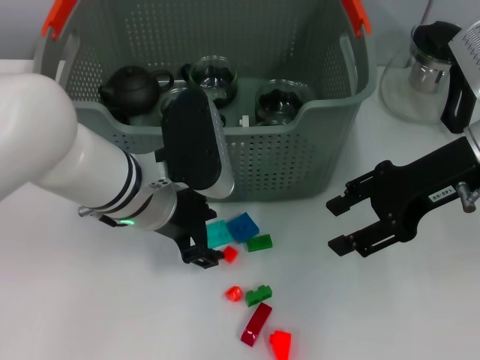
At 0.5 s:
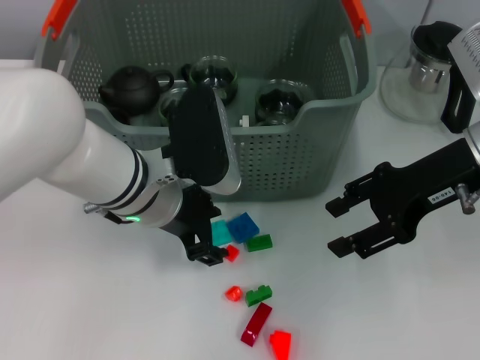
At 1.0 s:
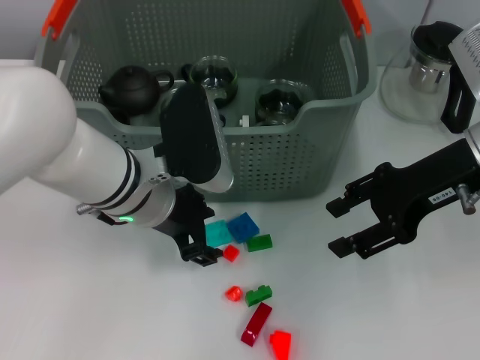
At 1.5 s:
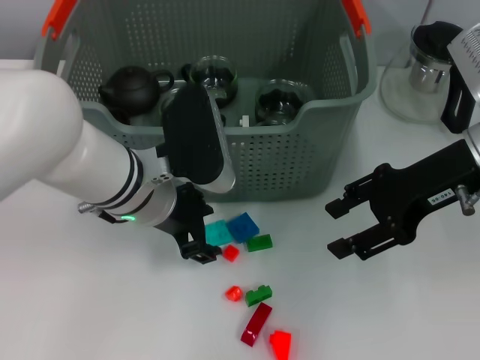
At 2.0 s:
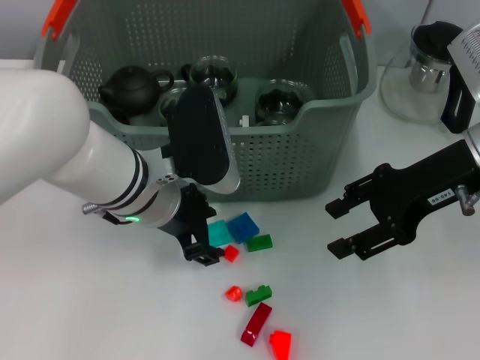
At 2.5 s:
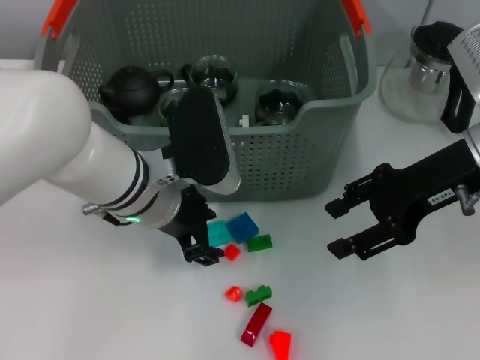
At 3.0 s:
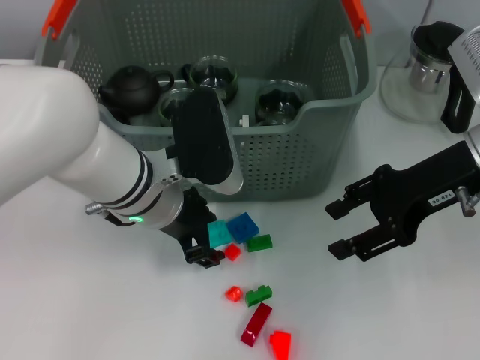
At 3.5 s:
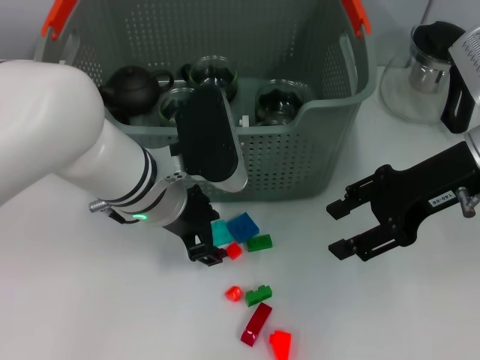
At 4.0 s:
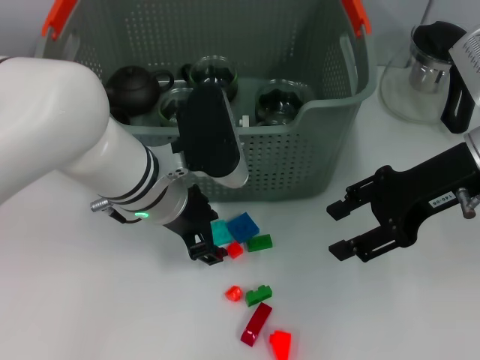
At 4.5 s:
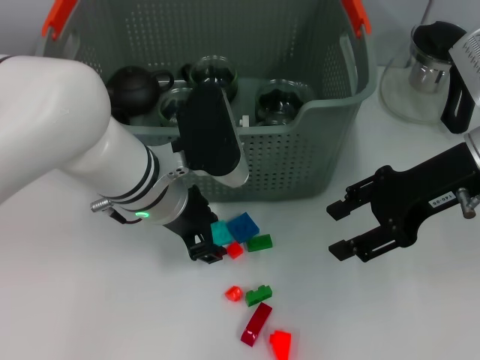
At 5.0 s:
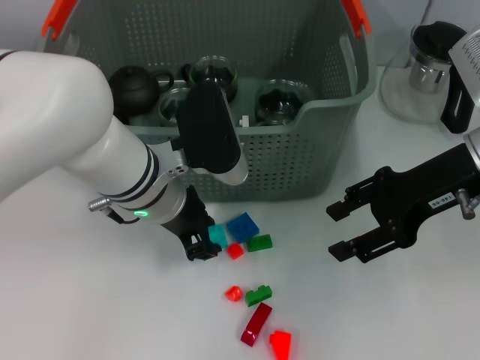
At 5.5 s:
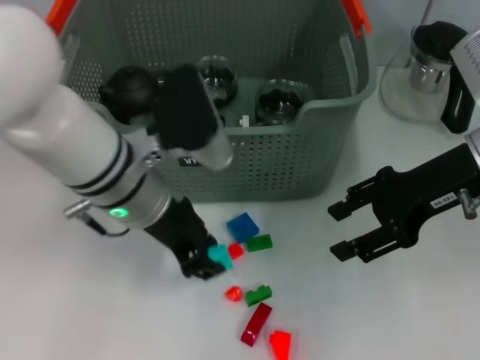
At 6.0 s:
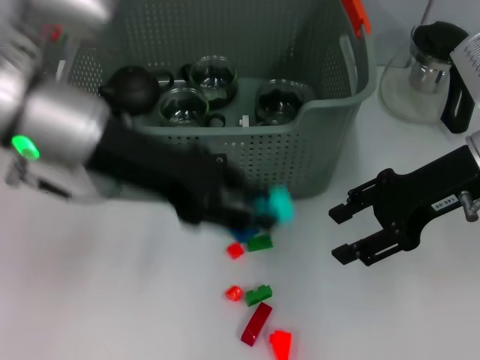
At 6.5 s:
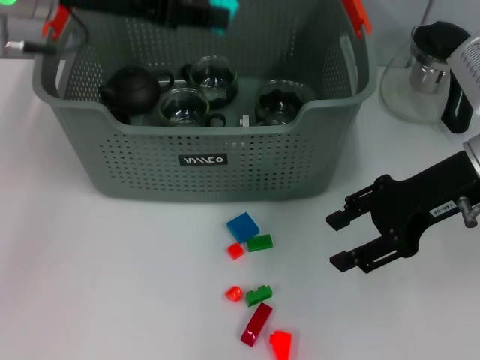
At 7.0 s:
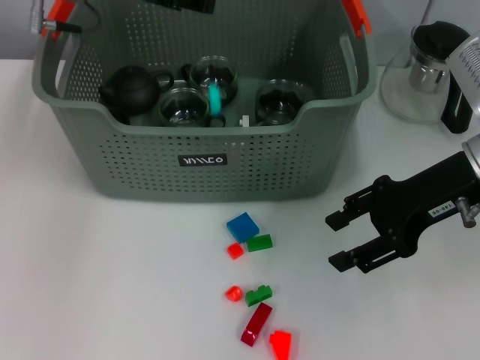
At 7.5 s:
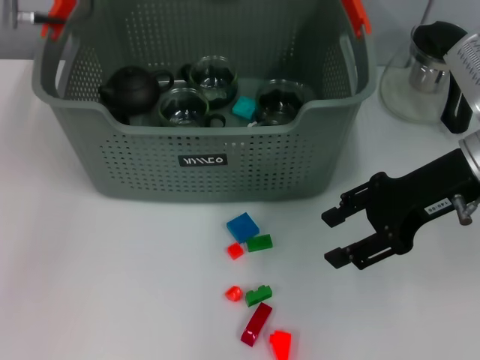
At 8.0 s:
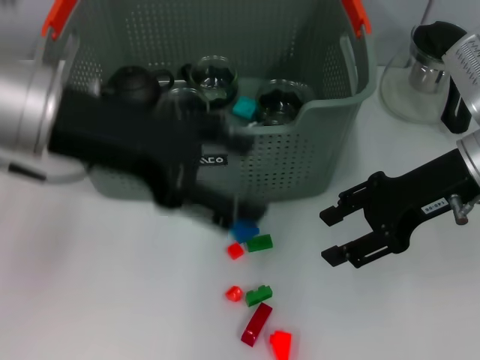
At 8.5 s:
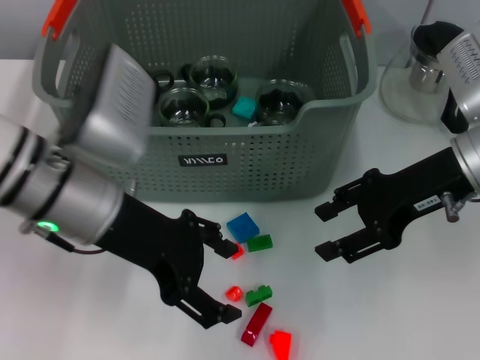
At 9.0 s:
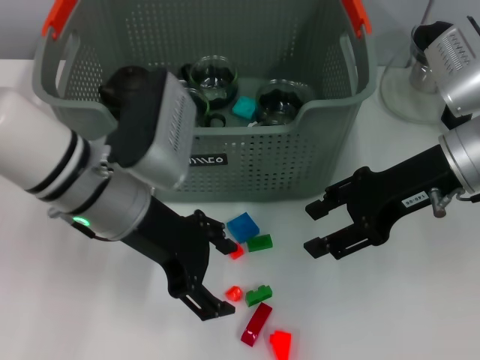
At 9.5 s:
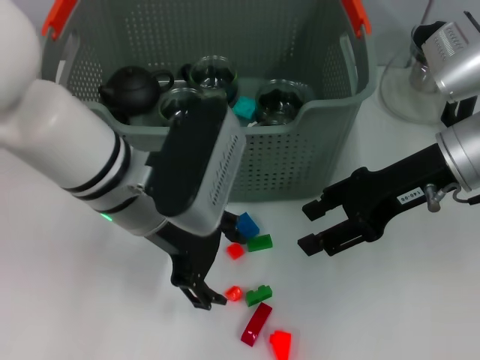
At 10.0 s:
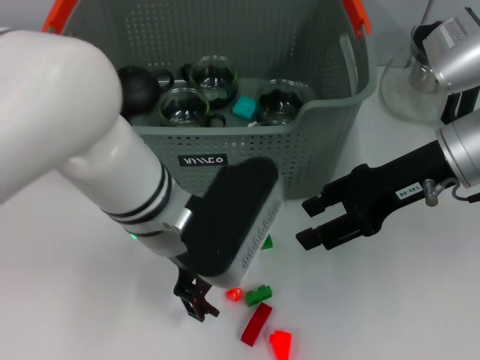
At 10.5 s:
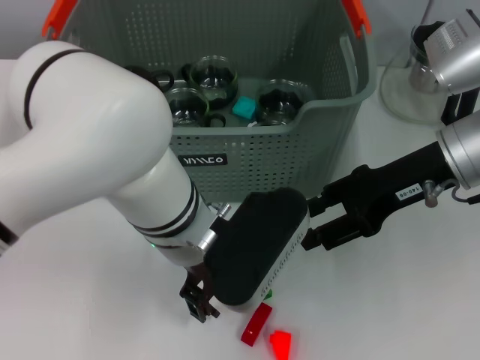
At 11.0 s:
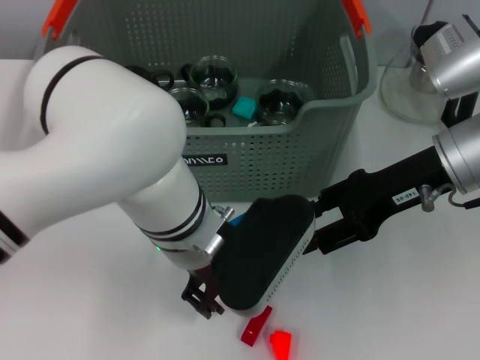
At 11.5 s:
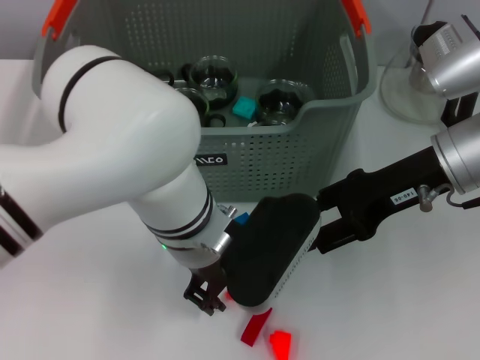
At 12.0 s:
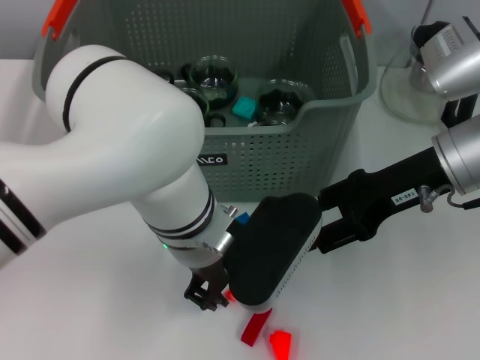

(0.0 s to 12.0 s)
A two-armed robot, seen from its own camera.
Task of the whole recording: pick up the teacup on the table and place it into the storage bin, pick up the block on the table and place it into the storage bin.
Step, 0.0 s - 4.5 s: Grasp the light blue block with left gripper.
Step, 5.0 s - 6.5 s: Place the light blue block in the storage box with left gripper.
0.0 s - 2.0 s: Both grippers stay about where they are.
2.0 s - 4.0 s: Both grippers stay about where they are.
4.0 s - 6.0 s: The left gripper moves upward and to the left, roughly 15 cm.
6.0 s - 8.0 s: The left gripper travels forward and back again, roughly 15 cm each way, and opens.
8.0 s - 10.0 s: The left gripper shifts some 15 cm downward and to the right.
10.0 s - 12.0 s: The left gripper closes up.

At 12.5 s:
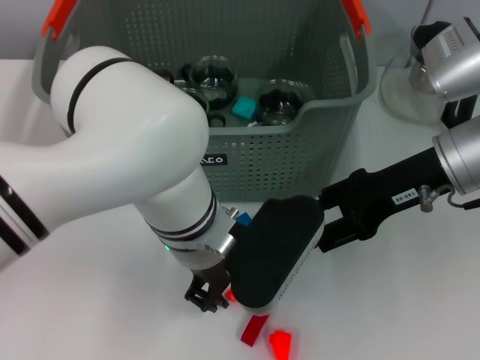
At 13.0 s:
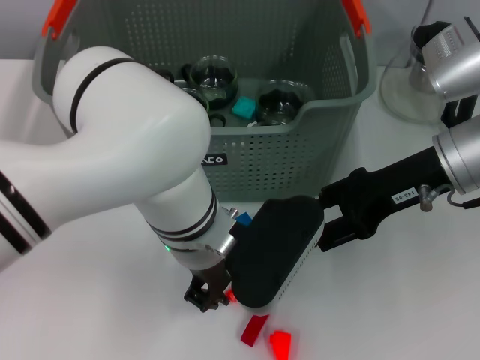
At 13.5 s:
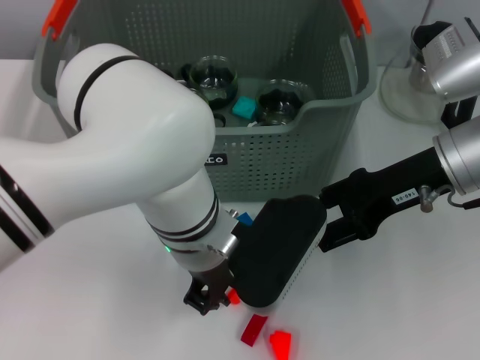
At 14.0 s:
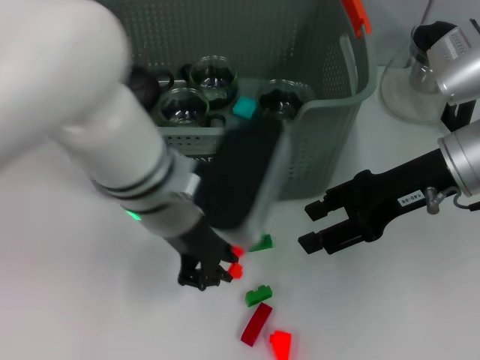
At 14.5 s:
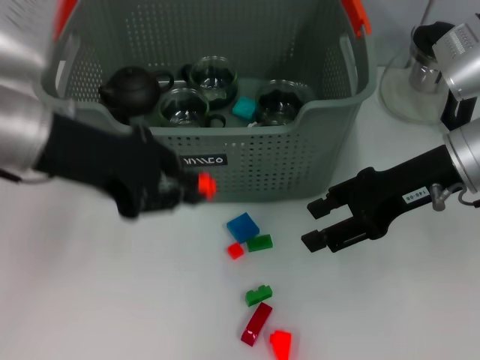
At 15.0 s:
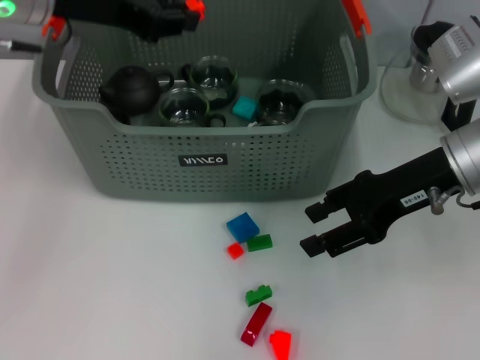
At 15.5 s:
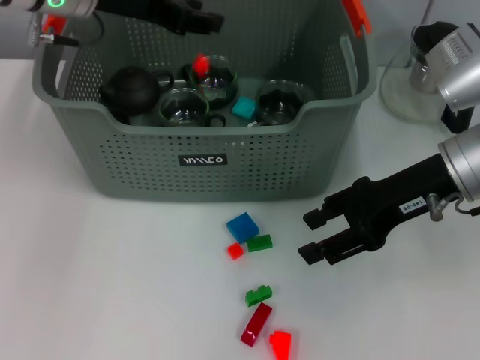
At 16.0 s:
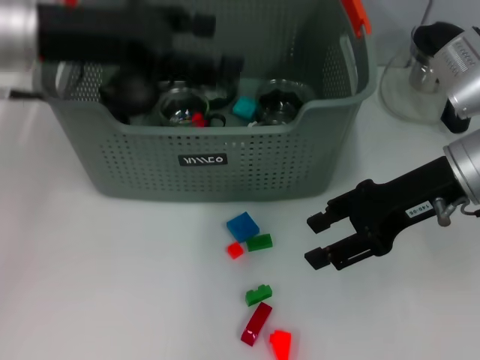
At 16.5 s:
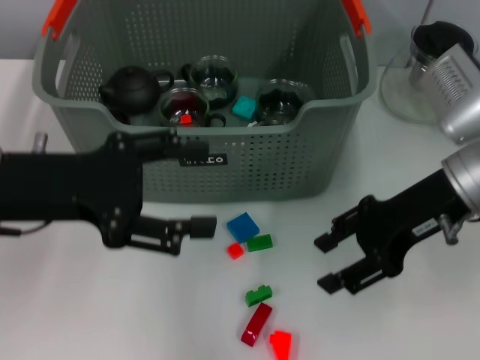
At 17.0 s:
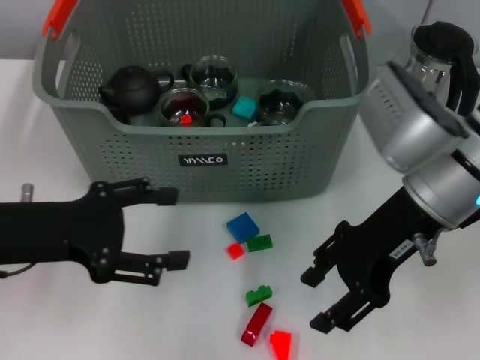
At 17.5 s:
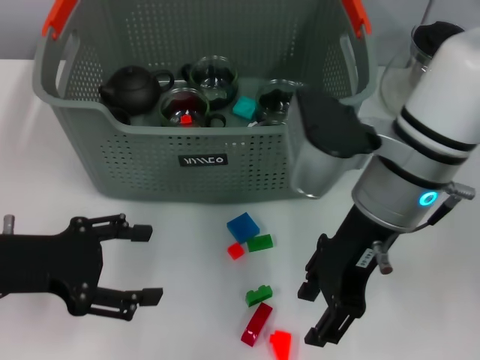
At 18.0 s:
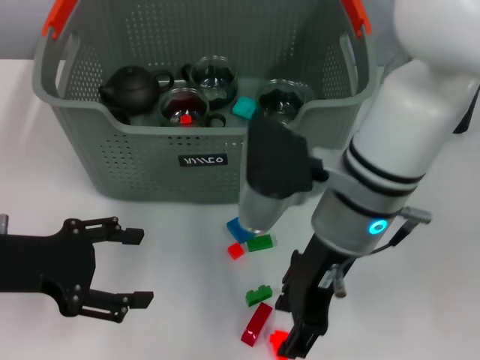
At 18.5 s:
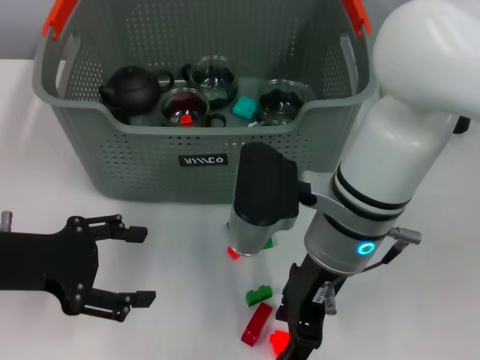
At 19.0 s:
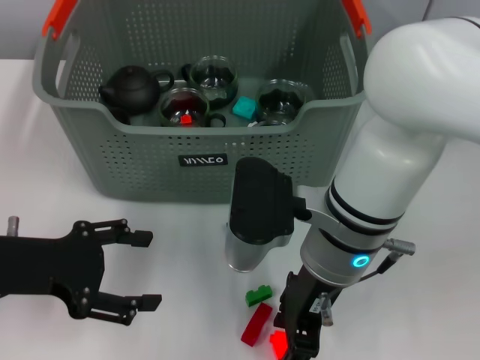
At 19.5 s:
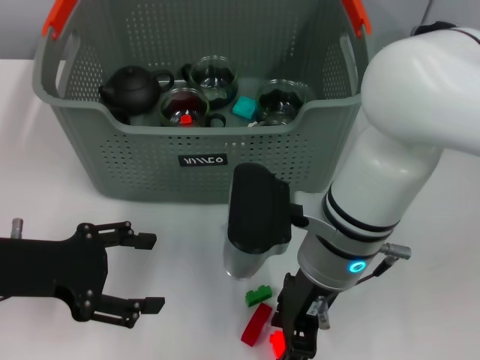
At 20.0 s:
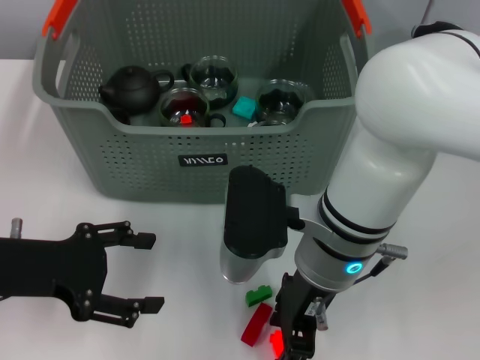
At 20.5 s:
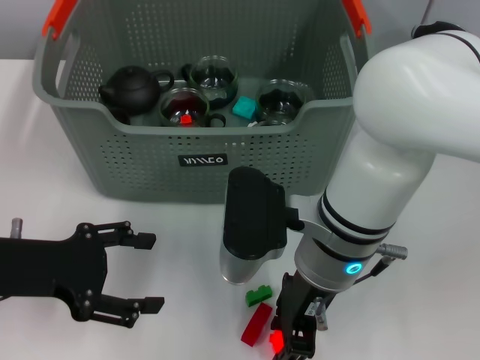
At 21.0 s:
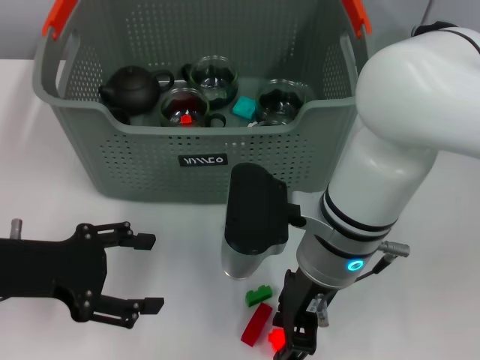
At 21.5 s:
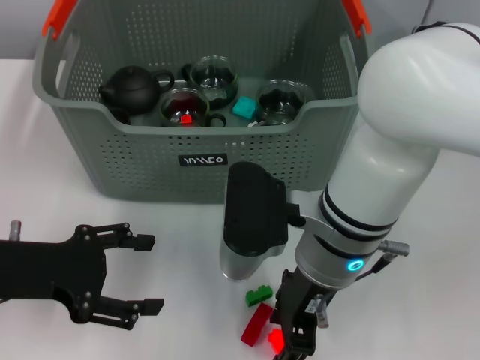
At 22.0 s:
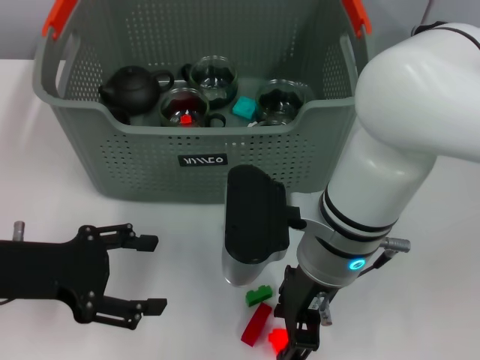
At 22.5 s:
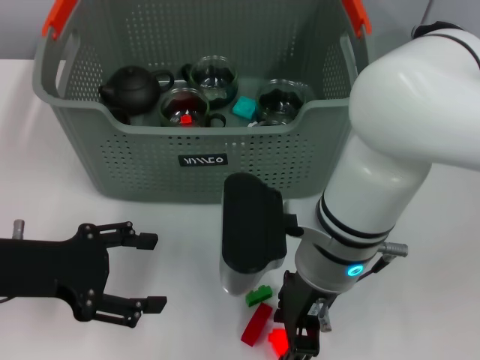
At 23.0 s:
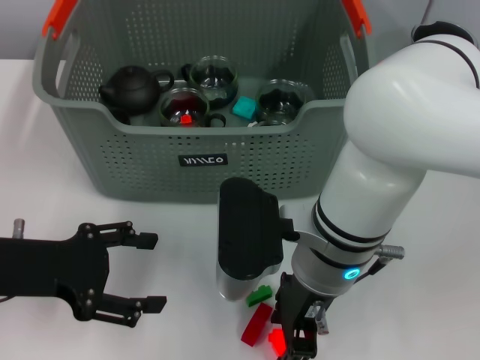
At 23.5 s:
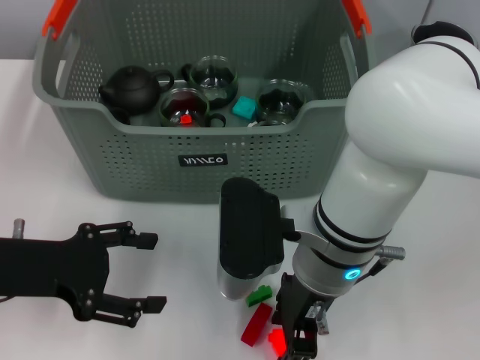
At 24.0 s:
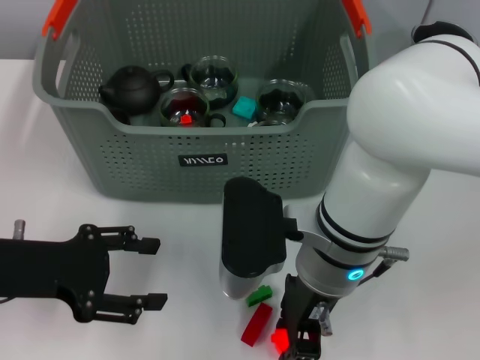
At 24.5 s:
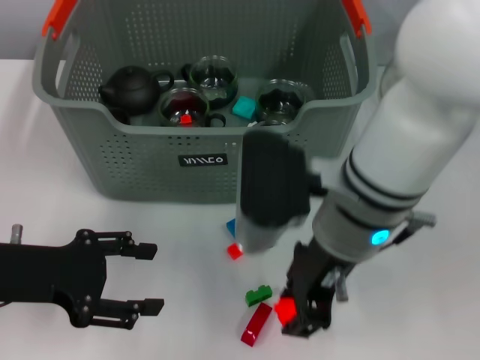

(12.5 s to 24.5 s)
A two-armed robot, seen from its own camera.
Task of the whole recording: pick up the teacup on the table and place it into the storage bin, pick up the block on the table and place it into the storage bin.
Step, 14.0 s - 15.0 s: Place the orange block in the storage box with left gripper.
Step, 15.5 s - 23.5 s: Grasp the orange block with right gripper.
12.5 s - 14.5 s: The left gripper shifts about 20 cm to the left and upward.
14.5 s - 16.5 s: The left gripper reaches roughly 10 cm forward, then returns, and opens up.
16.5 s - 18.5 s: The right gripper travels to the left by roughly 15 cm; the left gripper shifts roughly 5 cm downward.
20.5 s - 22.5 s: Neither gripper changes place.

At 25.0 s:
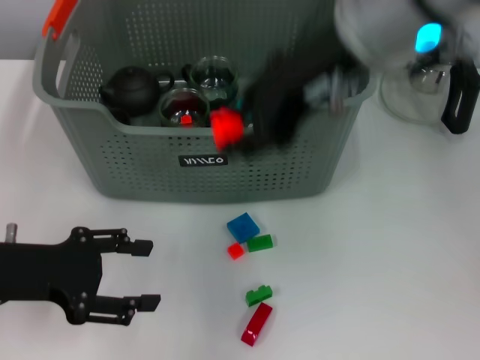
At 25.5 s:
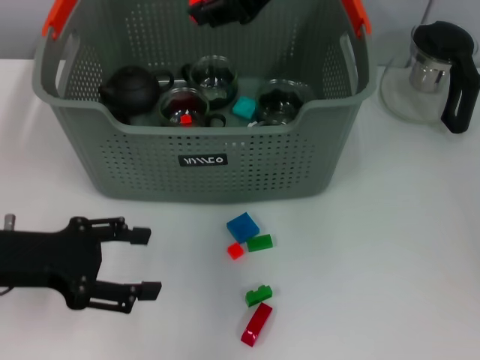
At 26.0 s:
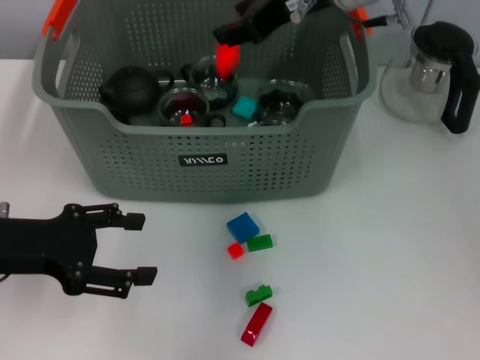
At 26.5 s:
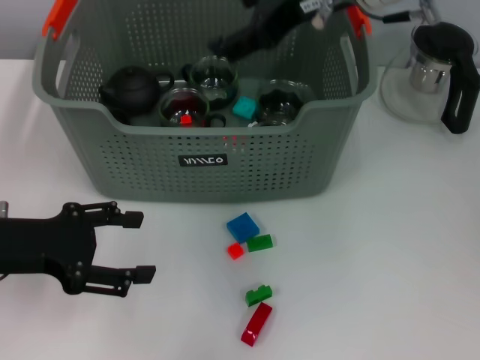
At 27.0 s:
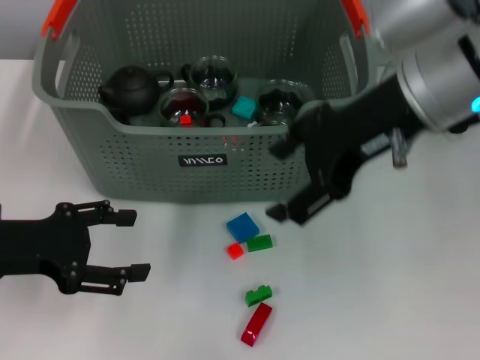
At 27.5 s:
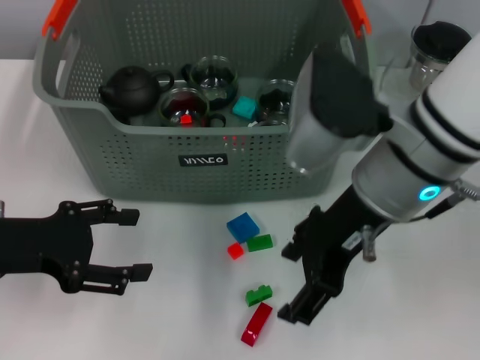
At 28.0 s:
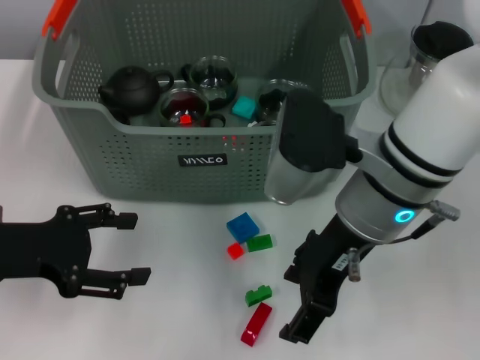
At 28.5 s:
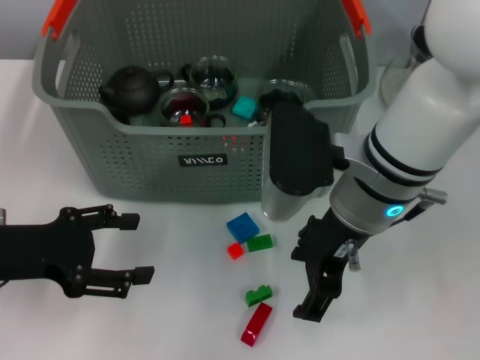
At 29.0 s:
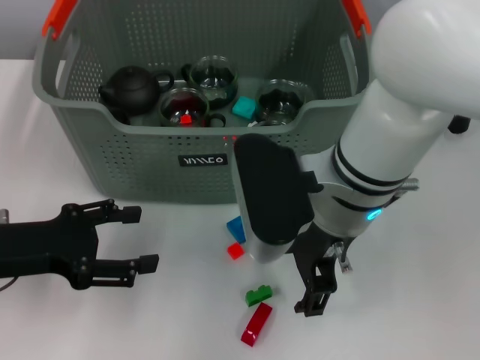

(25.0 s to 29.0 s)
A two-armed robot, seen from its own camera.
Task of the whole recording: pick up the teacup on the table and place it into the storage bin, pick up the block on the table and place it into the storage bin.
Step, 25.0 s - 26.0 s: Place the orange block in the storage box with right gripper.
25.0 s - 27.0 s: The right gripper goes approximately 10 cm downward and to the right, reaches some 10 cm forward, then returns, and opens its fingers.
27.0 s - 29.0 s: The right gripper shifts approximately 10 cm downward and to the left.
